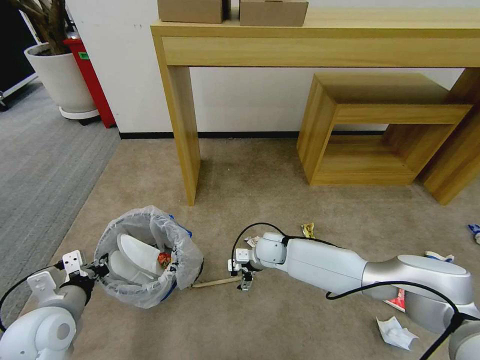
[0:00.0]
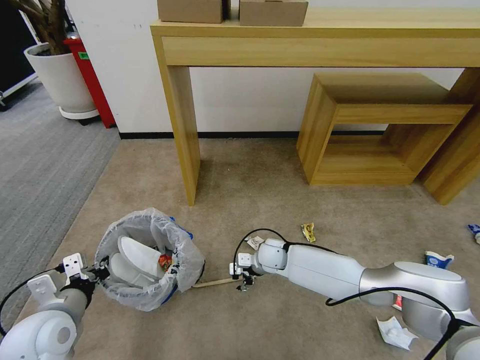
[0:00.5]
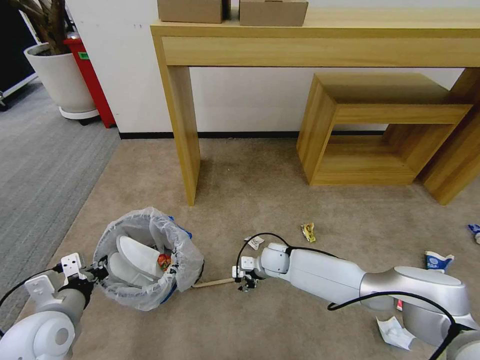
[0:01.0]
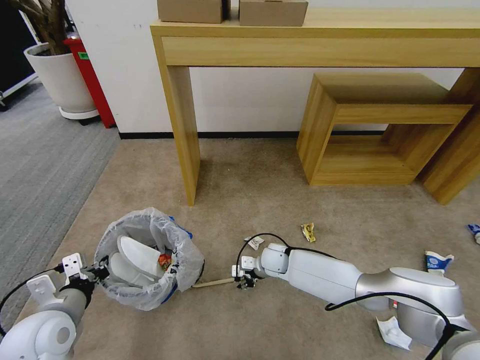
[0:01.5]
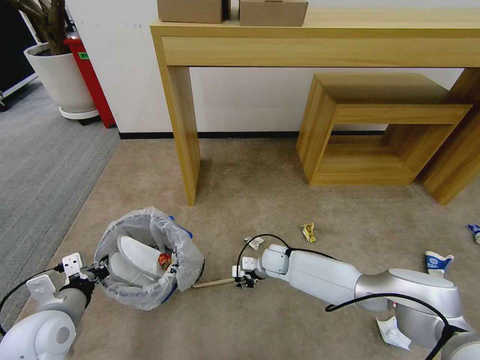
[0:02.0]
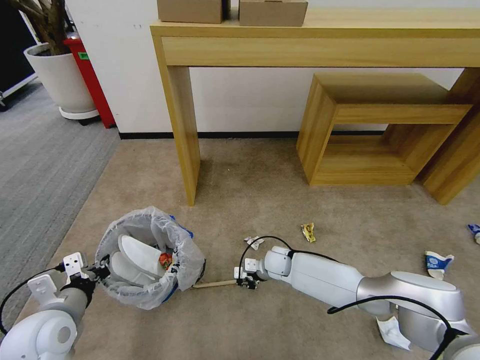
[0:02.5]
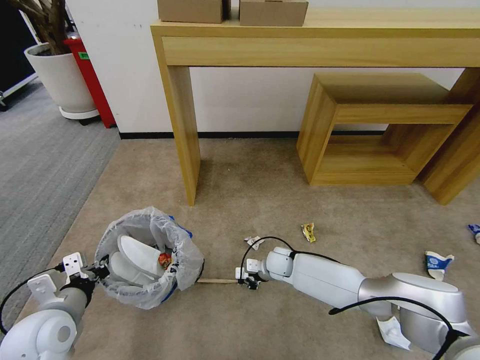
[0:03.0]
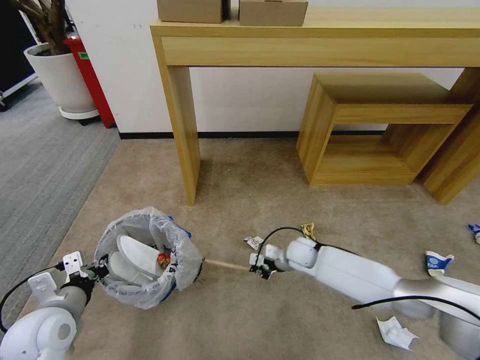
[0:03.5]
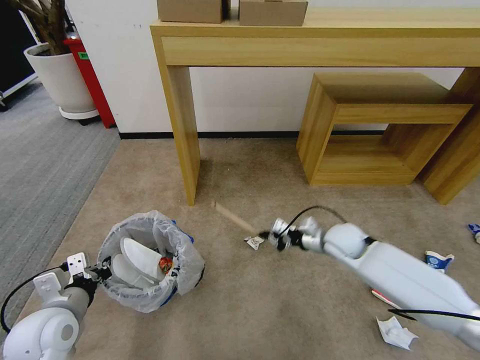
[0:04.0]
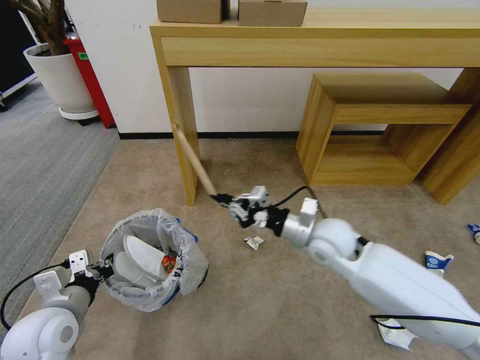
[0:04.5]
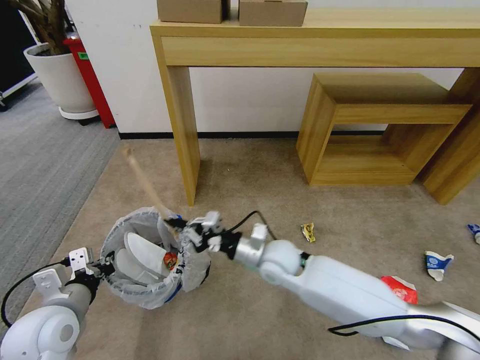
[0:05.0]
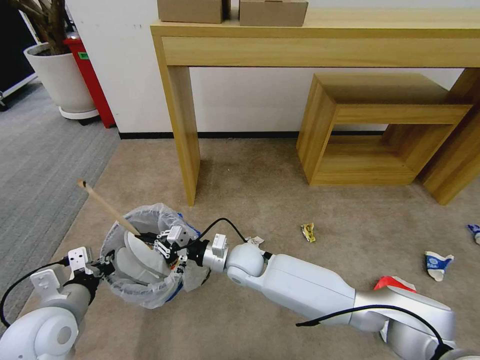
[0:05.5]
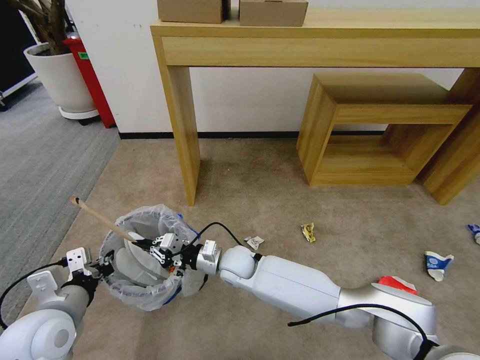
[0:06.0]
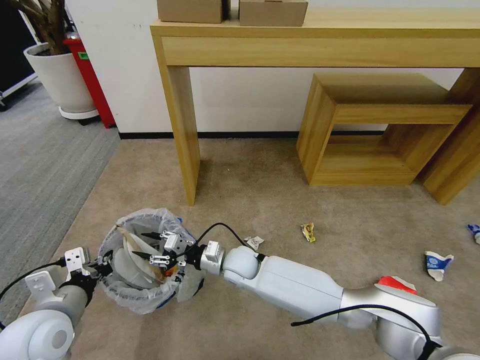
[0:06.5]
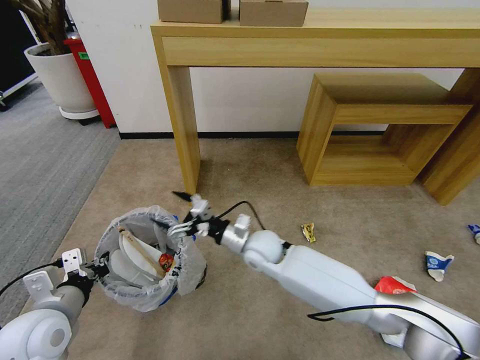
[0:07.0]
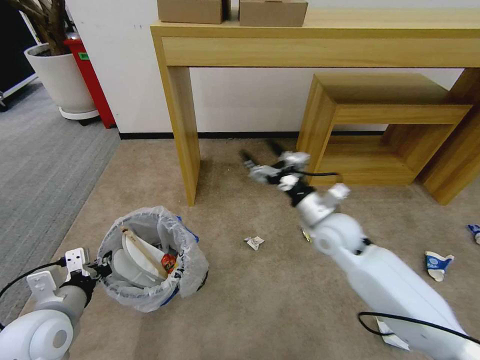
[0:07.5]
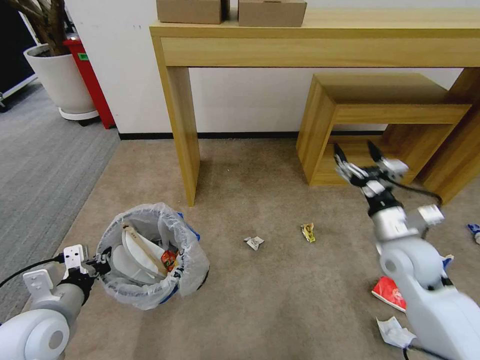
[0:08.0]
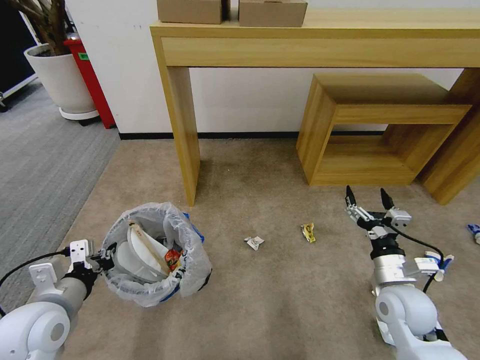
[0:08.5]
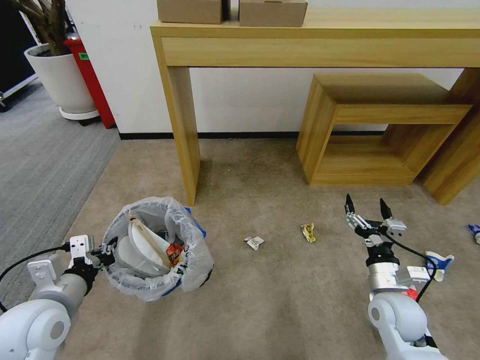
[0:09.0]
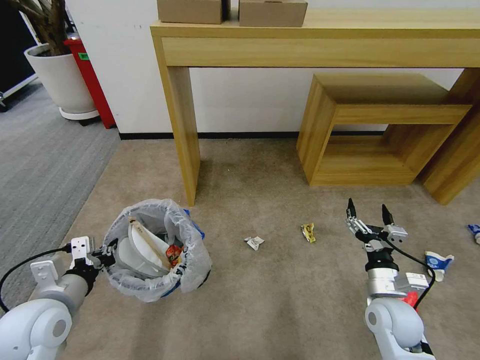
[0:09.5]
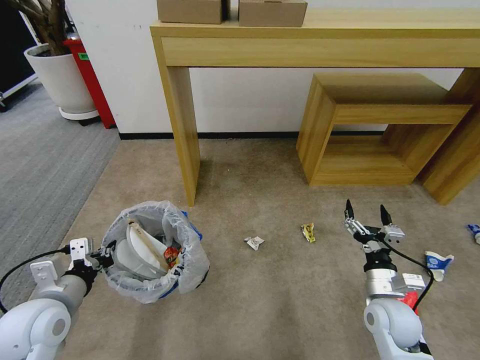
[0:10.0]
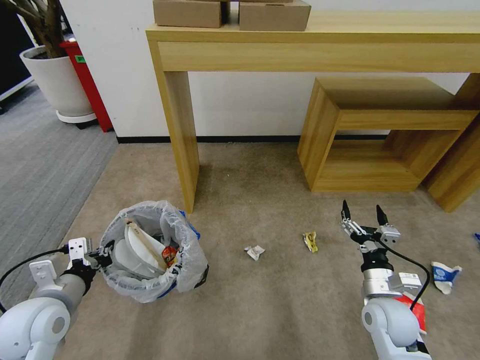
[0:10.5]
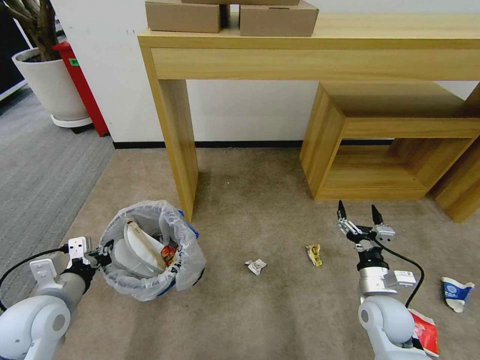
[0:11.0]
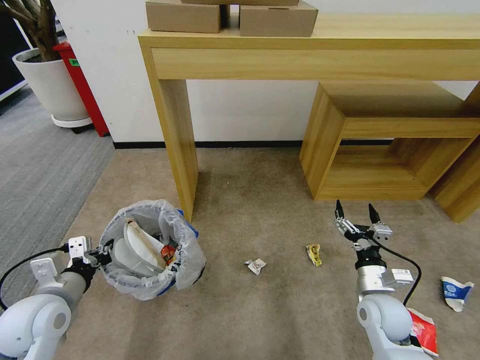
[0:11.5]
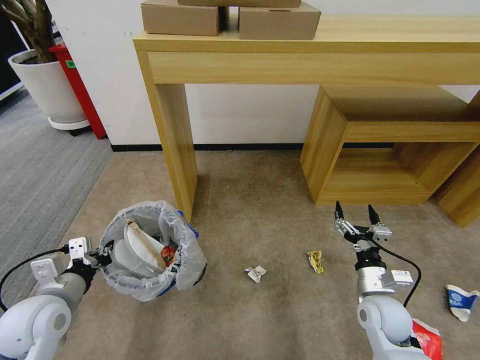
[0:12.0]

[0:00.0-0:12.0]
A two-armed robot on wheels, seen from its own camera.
Task of the whole recording: Pick up the trash bin and place the garbage on the floor into it.
0.0 to 2.0 s: The right gripper is displaced downward by about 5 cm, and closes its fingers.
2.0 to 4.0 s: The right gripper goes approximately 20 cm to the right and upward, and closes its fingers.
4.0 to 6.0 s: The right gripper goes some 25 cm to the left.
6.0 to 8.0 s: The right gripper is displaced to the right by approximately 35 cm, and opens.
8.0 to 10.0 s: The right gripper travels downward and backward by about 15 cm.

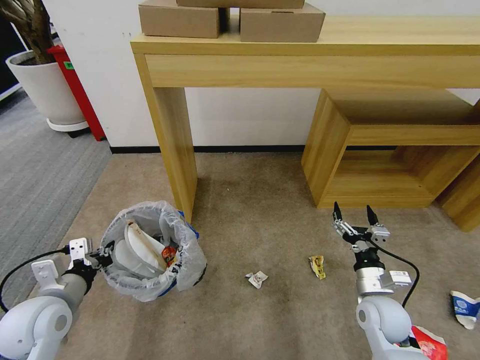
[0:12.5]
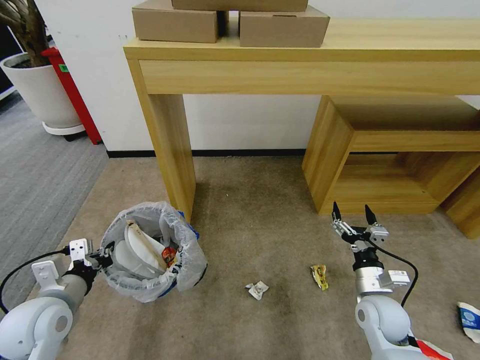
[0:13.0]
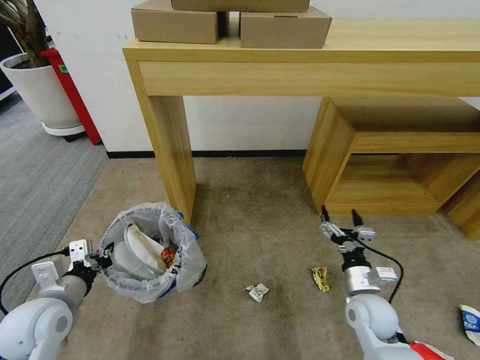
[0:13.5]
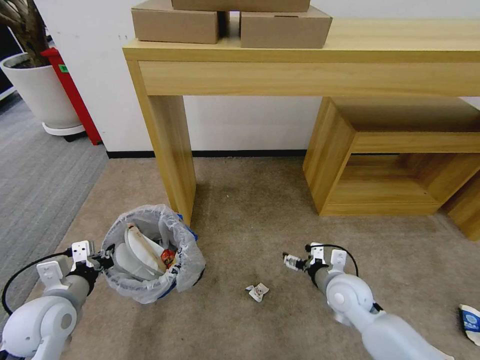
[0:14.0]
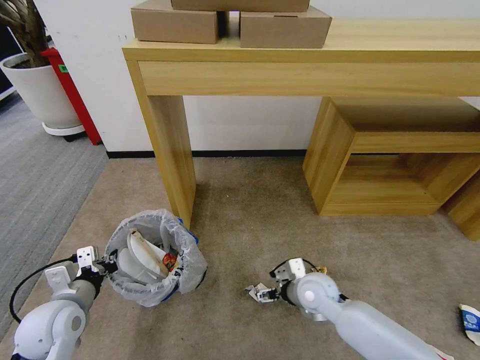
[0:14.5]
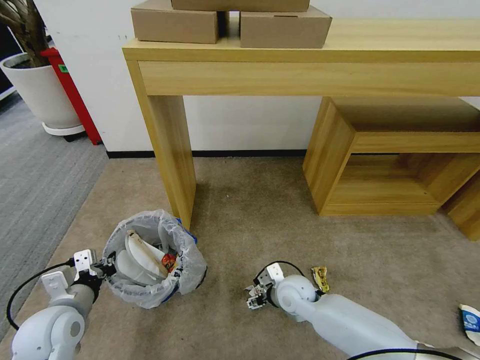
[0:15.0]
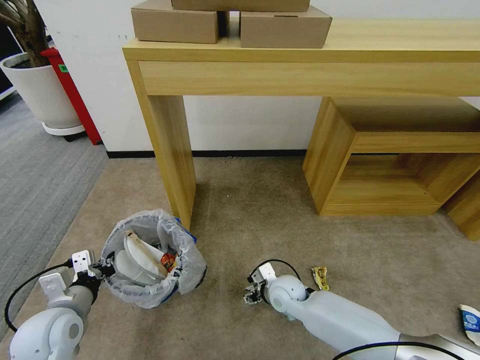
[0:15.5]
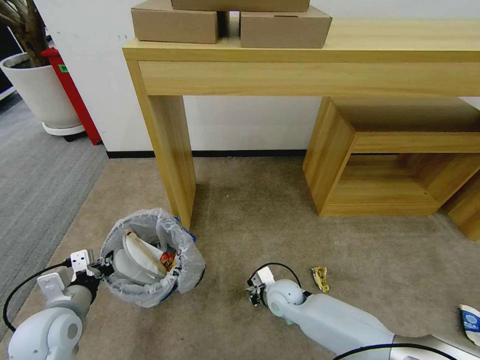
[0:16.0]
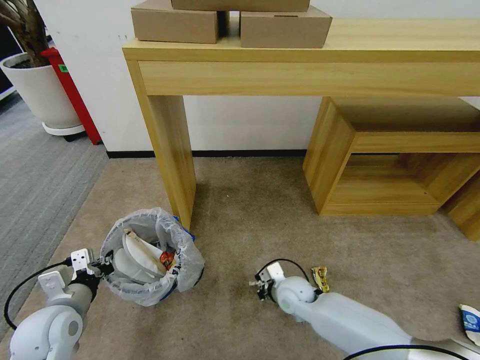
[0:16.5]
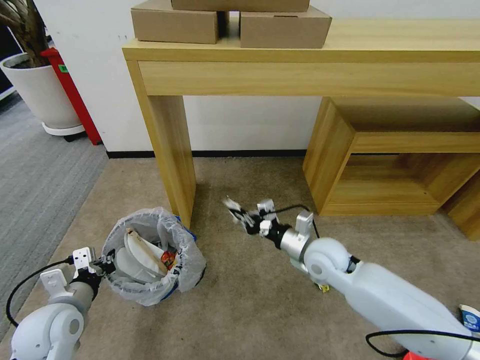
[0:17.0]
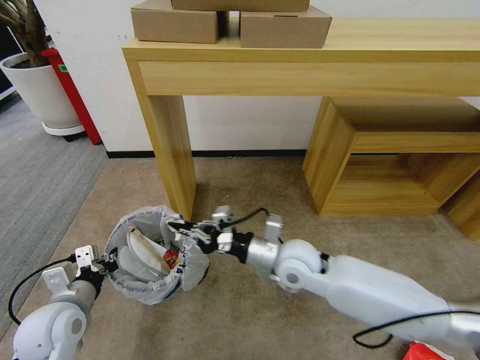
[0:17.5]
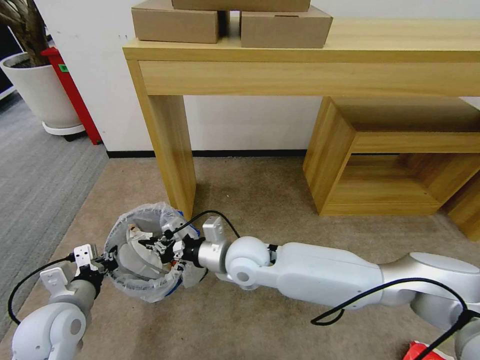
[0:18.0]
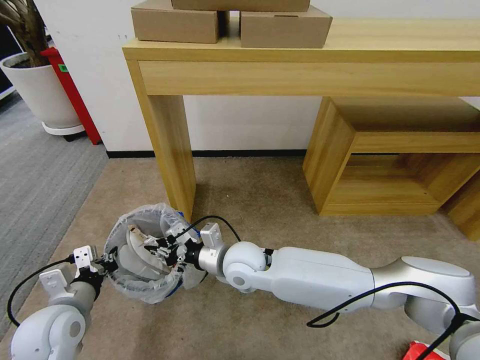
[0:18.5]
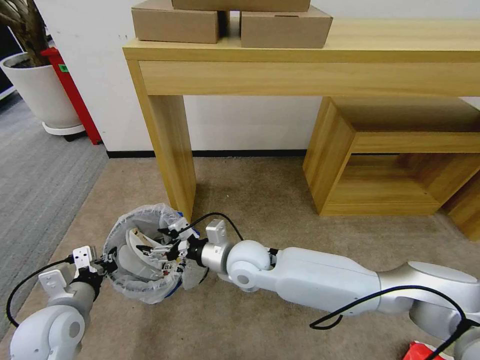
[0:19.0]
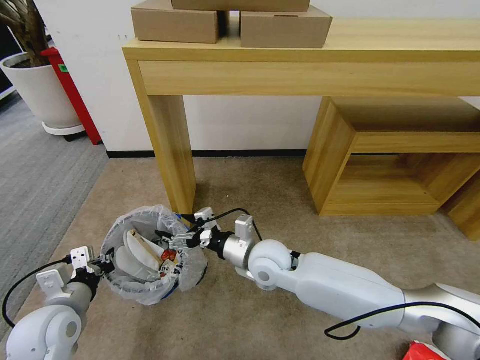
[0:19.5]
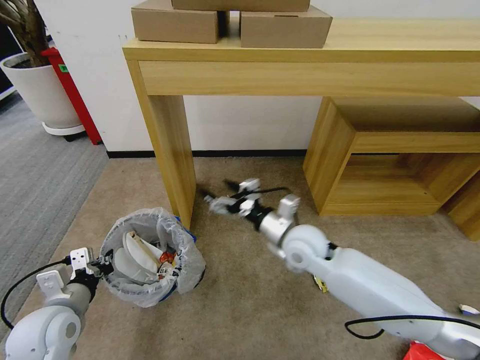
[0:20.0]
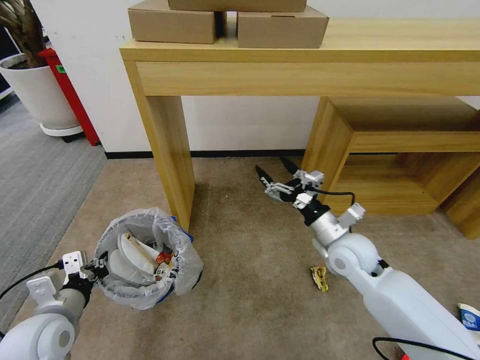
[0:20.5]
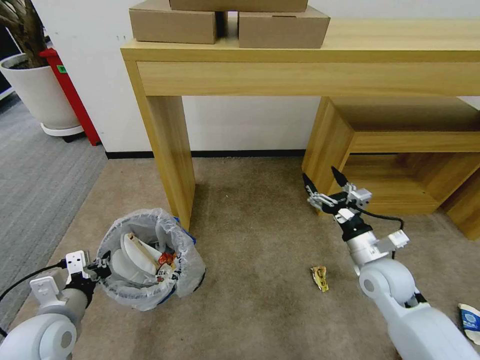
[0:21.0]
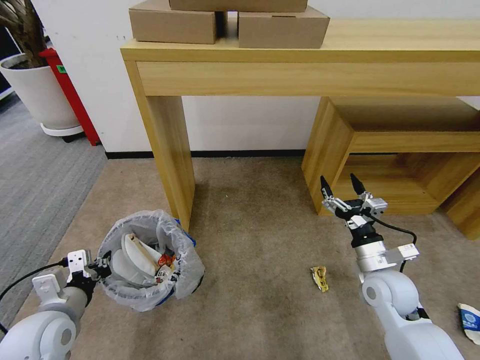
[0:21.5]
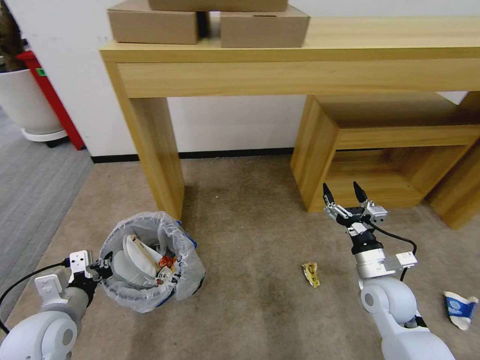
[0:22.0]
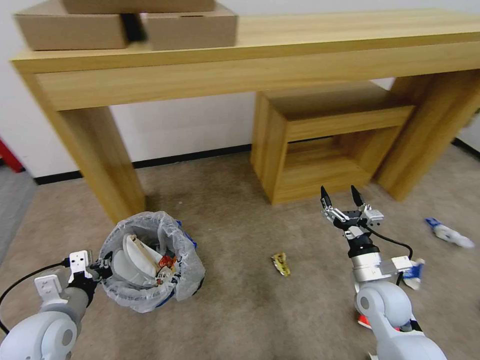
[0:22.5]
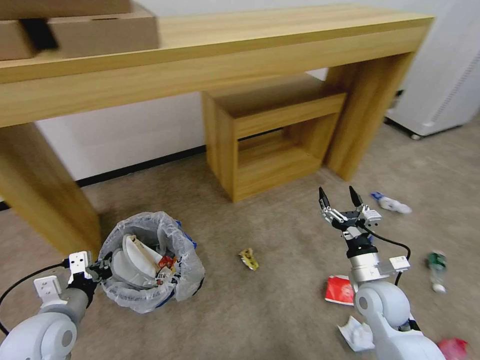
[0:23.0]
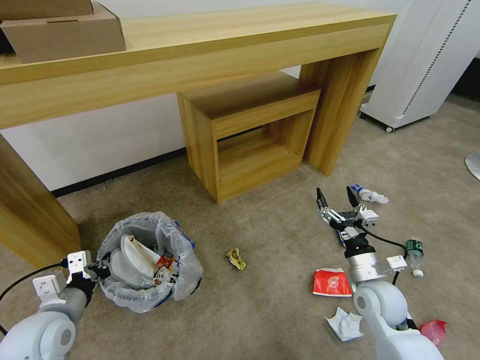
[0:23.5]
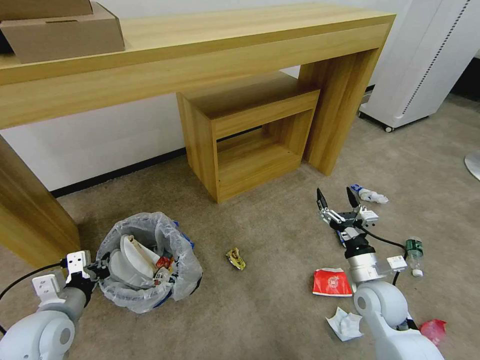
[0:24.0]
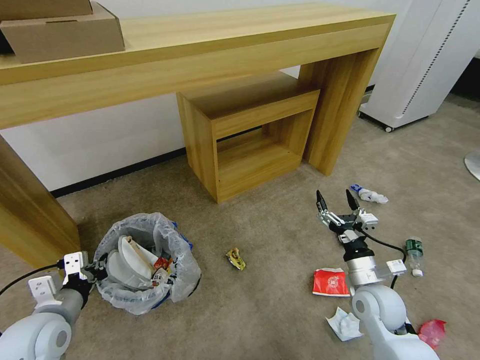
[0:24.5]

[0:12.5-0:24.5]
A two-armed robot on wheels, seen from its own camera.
Task of the whole recording: Pick up the trash bin and place the garbage on the floor into it.
12.5 to 14.5 s: The right gripper goes approximately 15 cm to the left and forward.
14.5 to 16.5 s: The right gripper shifts about 10 cm downward and to the left, and closes up.
16.5 to 18.5 s: The right gripper shifts roughly 20 cm upward and to the left.
18.5 to 20.5 s: The right gripper heads to the right, covering roughly 25 cm, and opens up.
20.5 to 22.5 s: The right gripper moves downward, backward and to the right, about 10 cm.

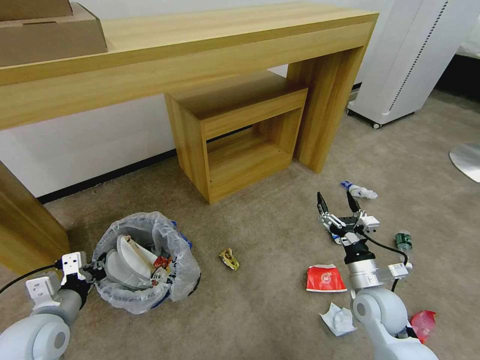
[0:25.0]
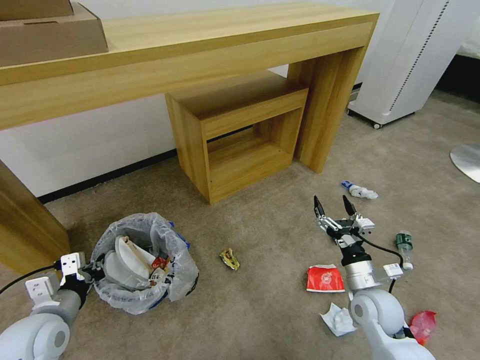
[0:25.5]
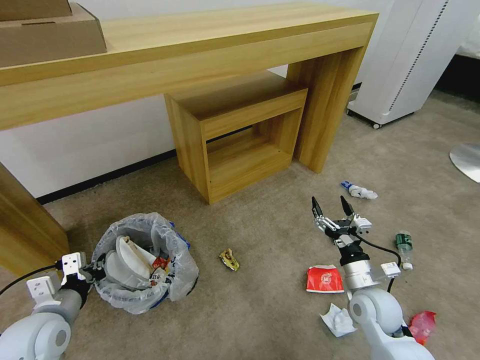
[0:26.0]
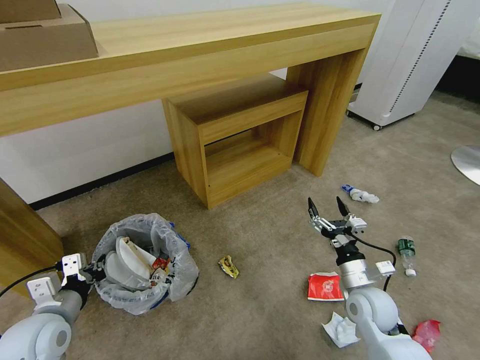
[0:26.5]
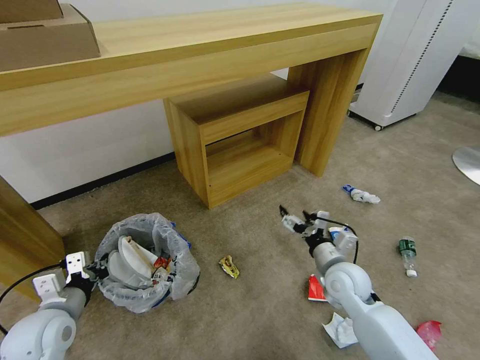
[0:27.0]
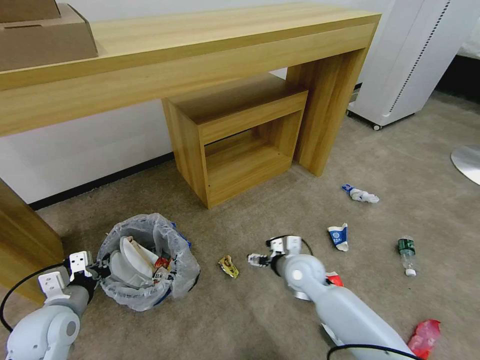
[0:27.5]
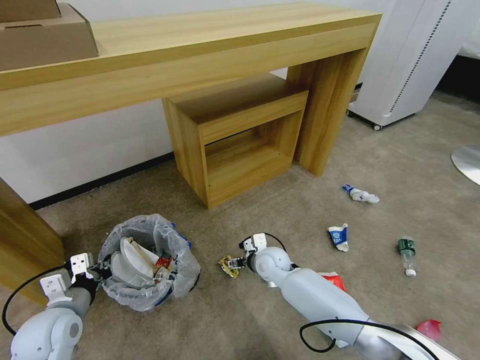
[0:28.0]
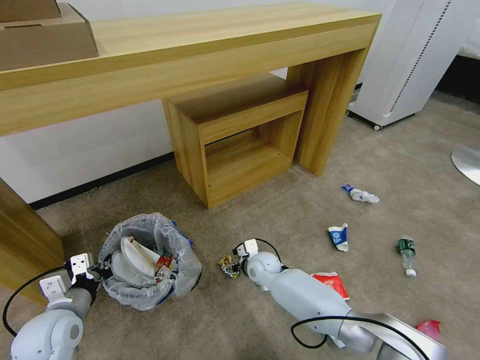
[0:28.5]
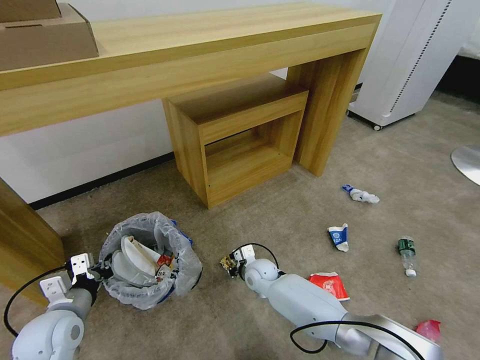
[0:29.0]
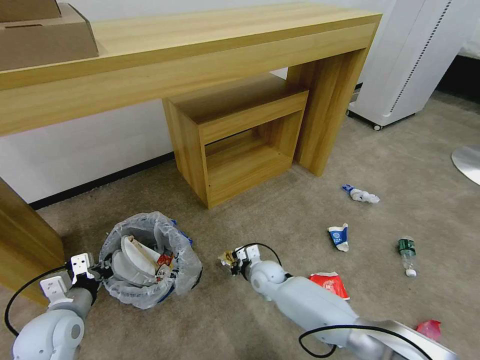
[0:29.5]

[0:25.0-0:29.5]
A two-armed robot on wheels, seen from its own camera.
Task of the whole recording: Pick up the trash bin and place the garbage on the floor into it.
25.0 to 27.0 s: The right gripper heads to the left and forward, covering some 10 cm.
27.0 to 29.5 s: The right gripper shifts some 20 cm to the left, downward and forward, and closes its fingers.
